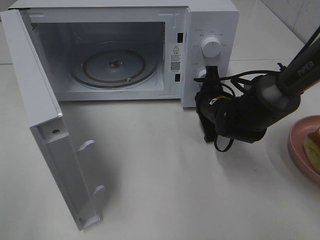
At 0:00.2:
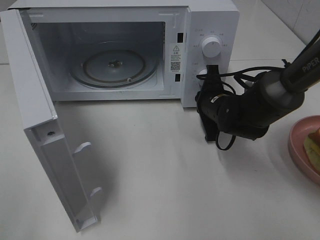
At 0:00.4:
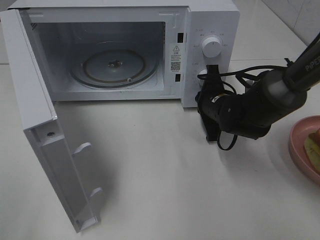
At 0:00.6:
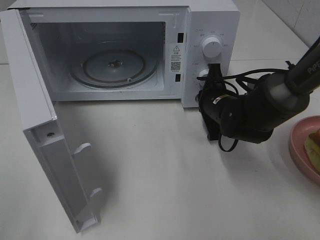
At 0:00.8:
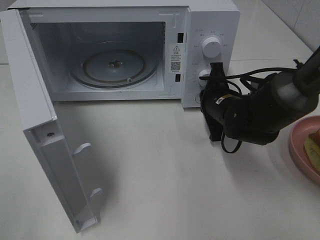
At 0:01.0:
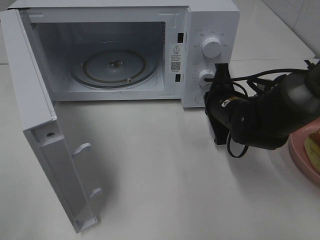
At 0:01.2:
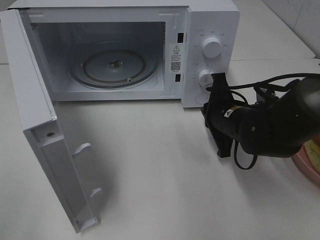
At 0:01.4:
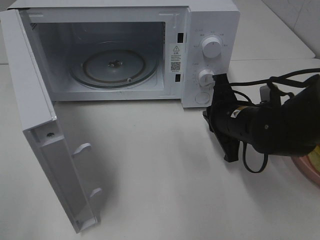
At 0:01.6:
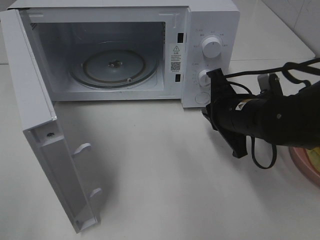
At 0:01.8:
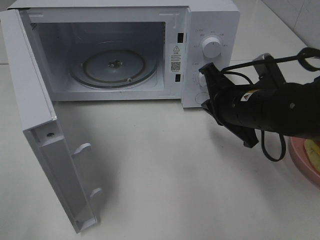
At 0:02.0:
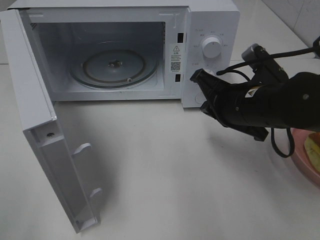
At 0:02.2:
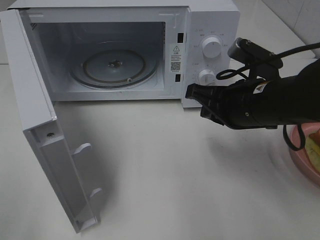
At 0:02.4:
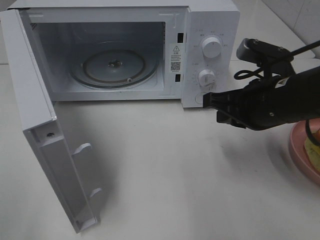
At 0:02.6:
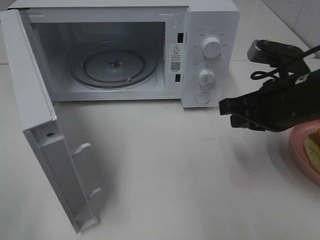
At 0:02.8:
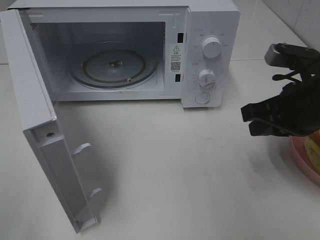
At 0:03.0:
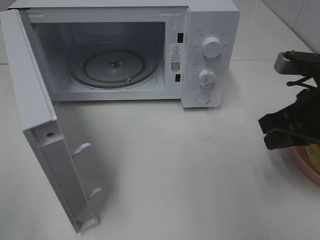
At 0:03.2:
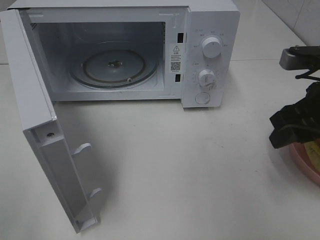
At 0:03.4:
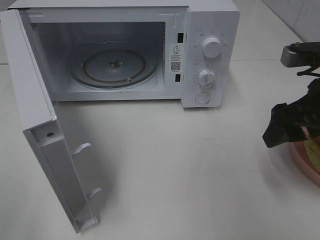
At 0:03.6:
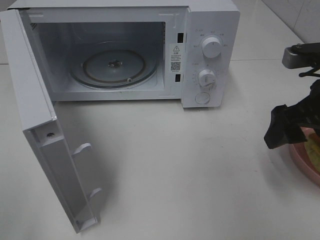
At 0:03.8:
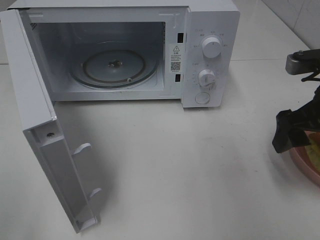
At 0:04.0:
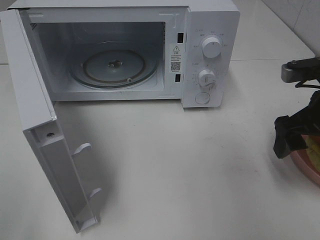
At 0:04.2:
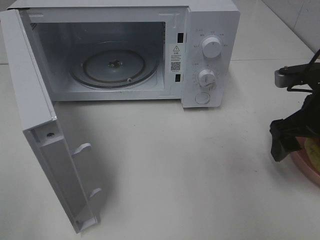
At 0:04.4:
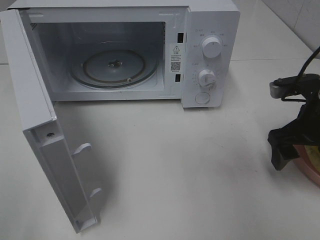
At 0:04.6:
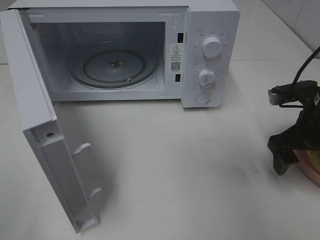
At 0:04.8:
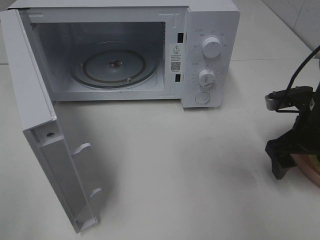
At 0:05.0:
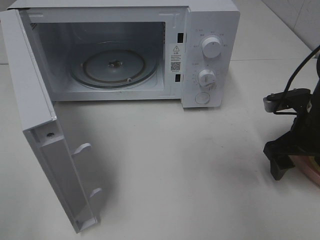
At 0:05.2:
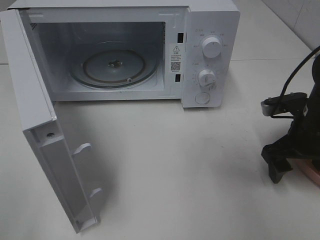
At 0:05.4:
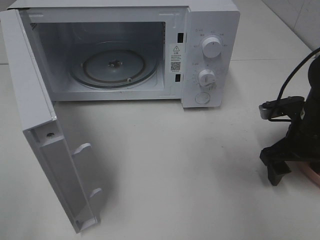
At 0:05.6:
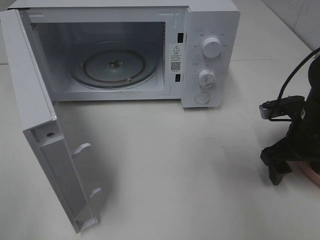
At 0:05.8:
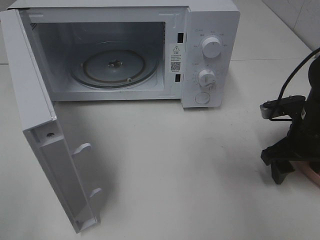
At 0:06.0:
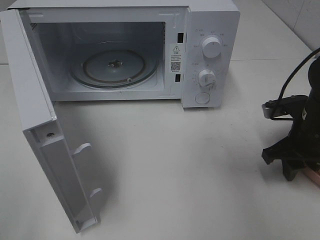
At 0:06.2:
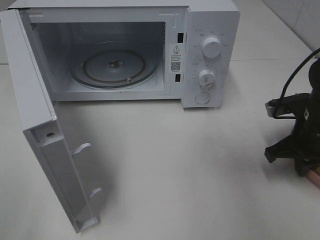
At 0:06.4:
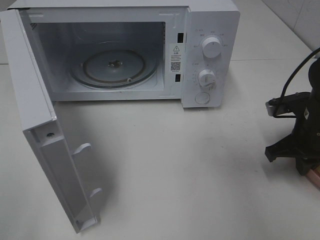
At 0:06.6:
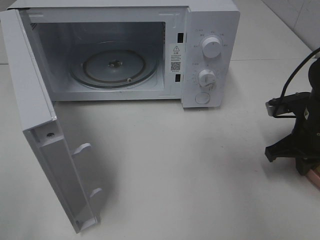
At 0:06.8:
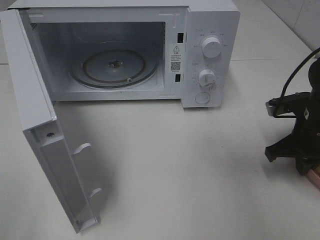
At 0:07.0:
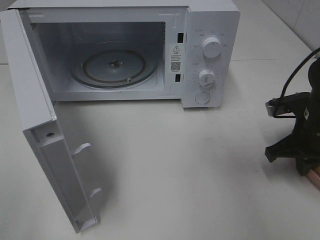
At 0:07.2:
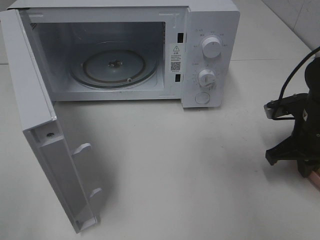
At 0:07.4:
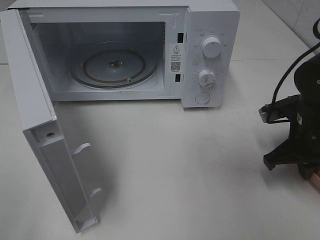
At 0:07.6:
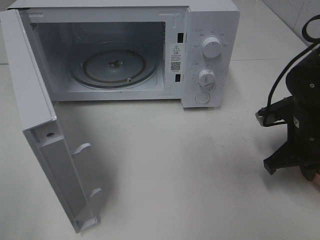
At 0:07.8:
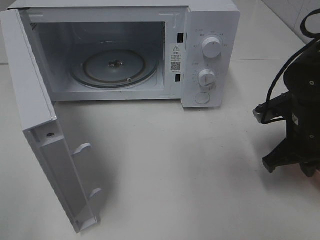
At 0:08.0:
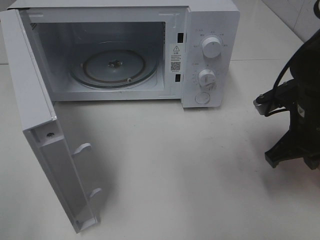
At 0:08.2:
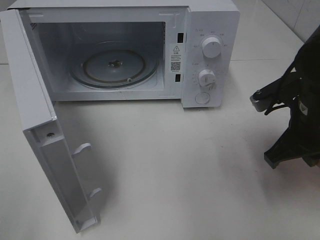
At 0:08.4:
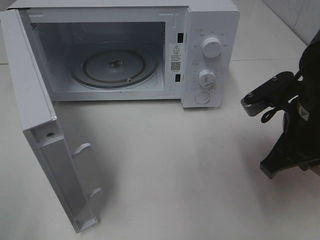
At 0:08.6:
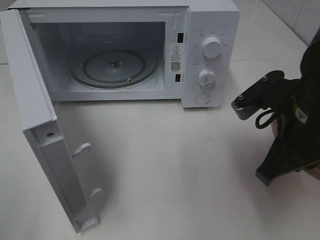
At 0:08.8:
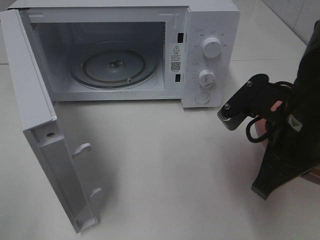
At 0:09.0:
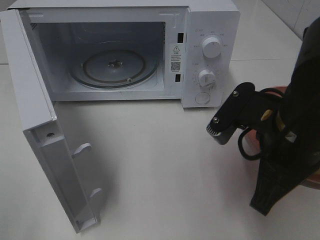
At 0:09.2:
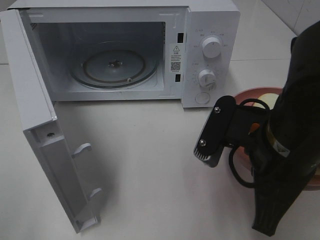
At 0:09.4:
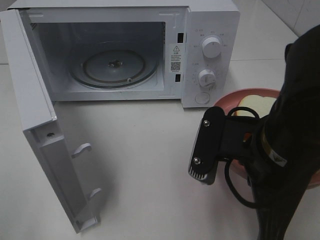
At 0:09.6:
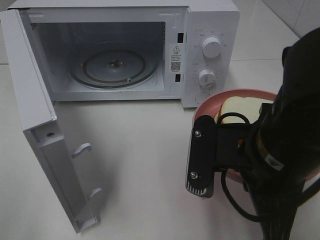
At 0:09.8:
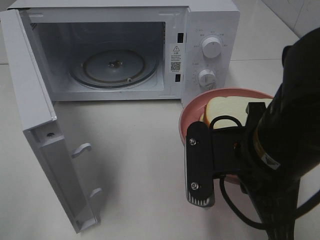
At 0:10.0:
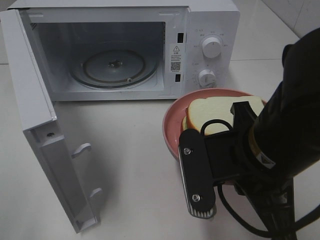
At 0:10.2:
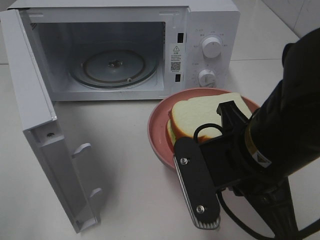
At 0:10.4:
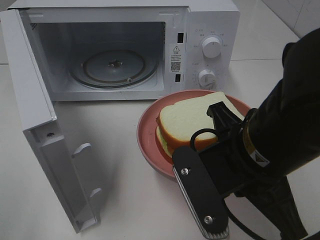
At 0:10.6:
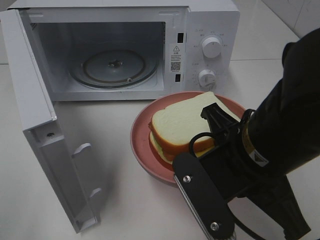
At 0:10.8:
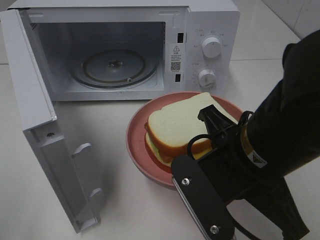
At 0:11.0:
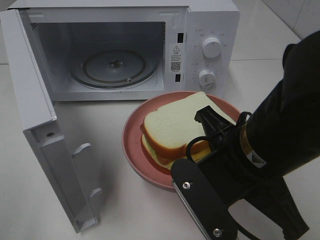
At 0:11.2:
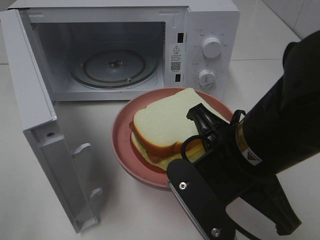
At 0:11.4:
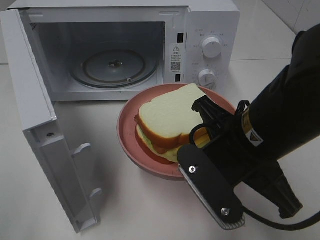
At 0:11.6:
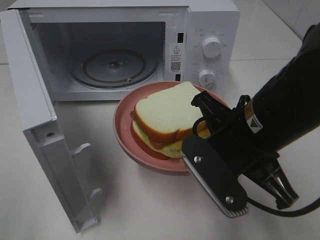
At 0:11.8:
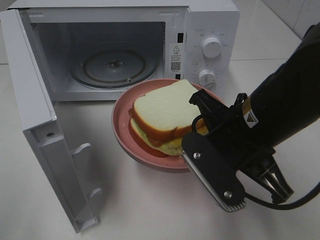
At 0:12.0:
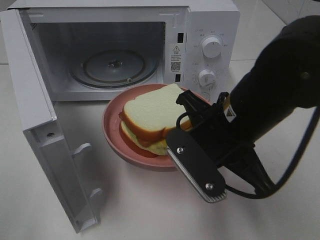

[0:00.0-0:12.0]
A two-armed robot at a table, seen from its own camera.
Task of the whole recording: Heat Sandwich.
Step, 0:01.2 to 0:07.4: Right hand: grab the plate with the sandwich.
0:00.0 to 0:01.6: The right gripper shifts some 10 cm backward and upward.
0:01.6 to 0:03.0: The right gripper goes roughly 15 cm to the right, upward and backward.
0:03.0 to 0:04.4: The right gripper shifts by about 5 cm, and opens.
0:04.4 to 0:06.0: The right gripper closes up.
0:06.0 to 0:07.6: The right gripper closes.
0:07.6 to 0:09.0: The right gripper shifts about 15 cm to the left, backward and upward.
0:09.0 to 0:10.4: The right gripper moves approximately 5 cm.
0:10.4 to 0:12.0: The right gripper travels forward by approximately 5 cm.

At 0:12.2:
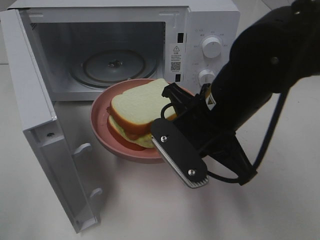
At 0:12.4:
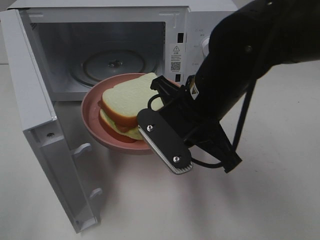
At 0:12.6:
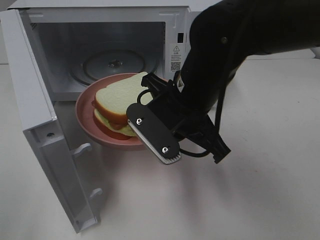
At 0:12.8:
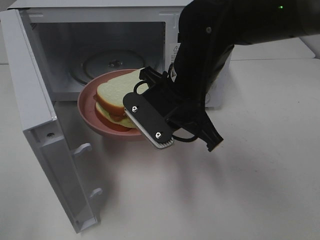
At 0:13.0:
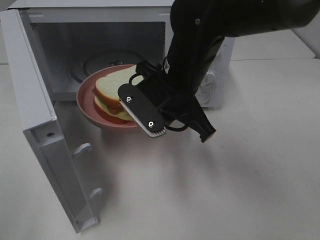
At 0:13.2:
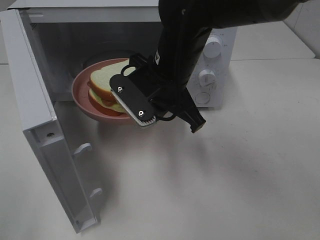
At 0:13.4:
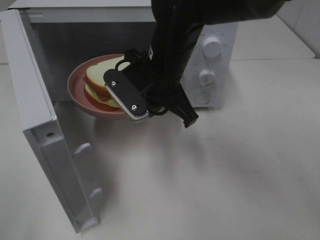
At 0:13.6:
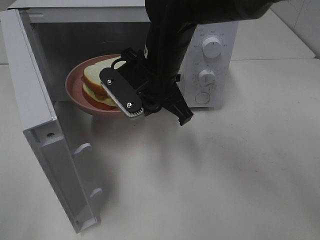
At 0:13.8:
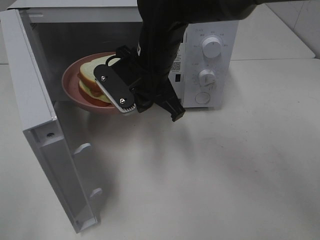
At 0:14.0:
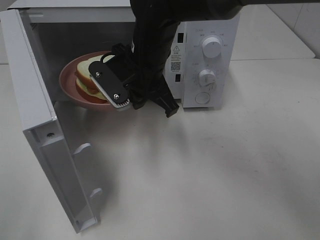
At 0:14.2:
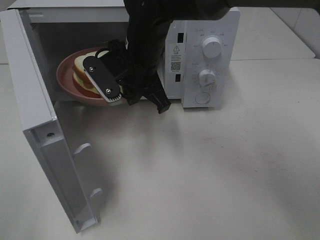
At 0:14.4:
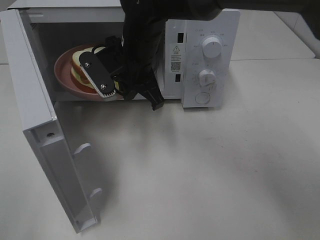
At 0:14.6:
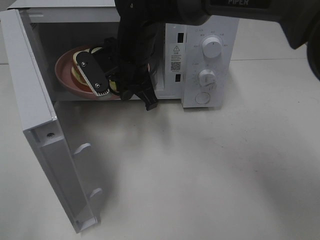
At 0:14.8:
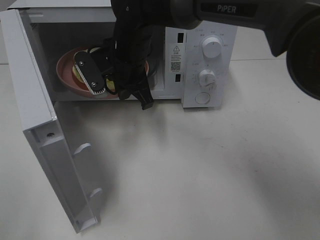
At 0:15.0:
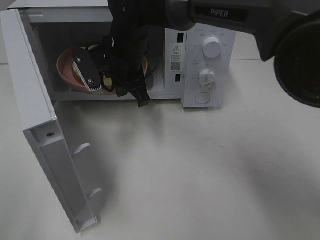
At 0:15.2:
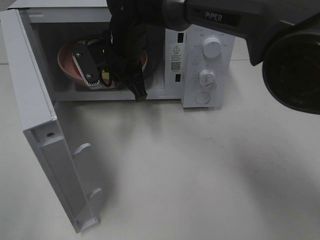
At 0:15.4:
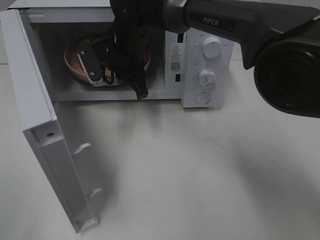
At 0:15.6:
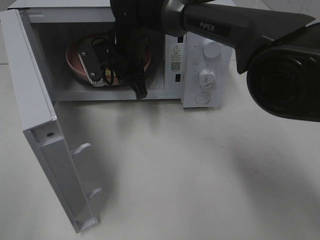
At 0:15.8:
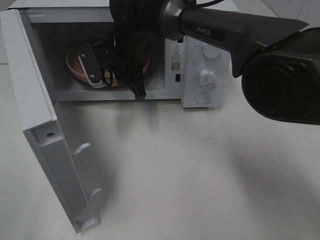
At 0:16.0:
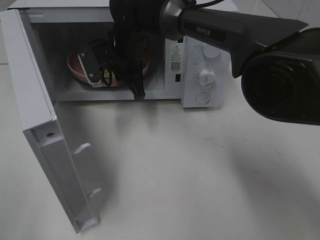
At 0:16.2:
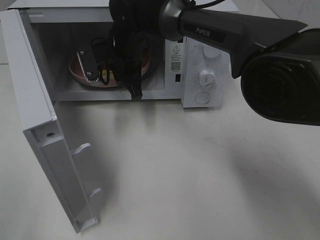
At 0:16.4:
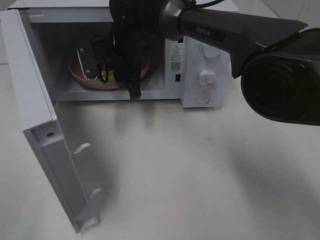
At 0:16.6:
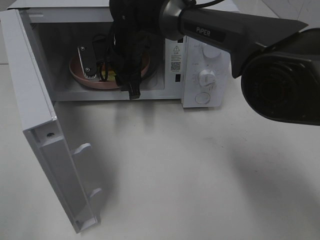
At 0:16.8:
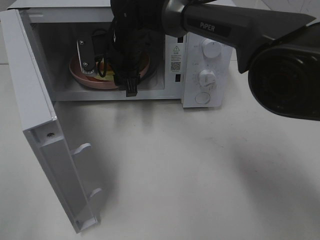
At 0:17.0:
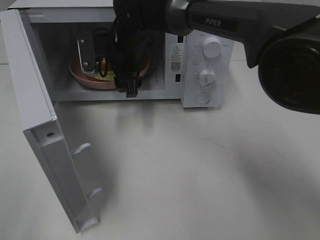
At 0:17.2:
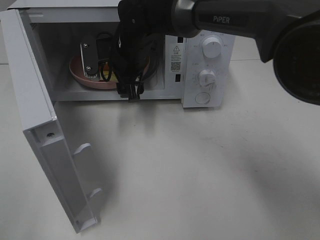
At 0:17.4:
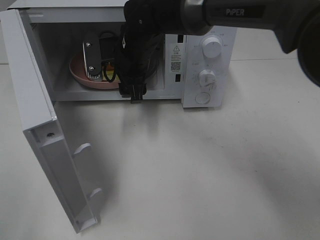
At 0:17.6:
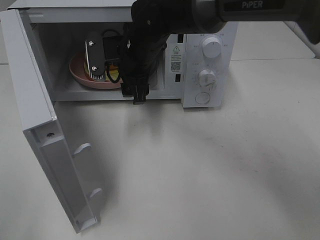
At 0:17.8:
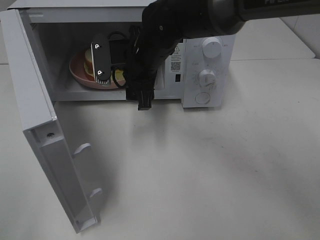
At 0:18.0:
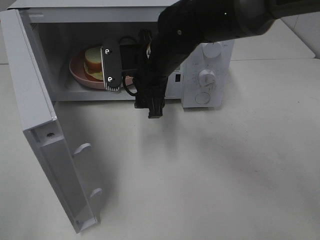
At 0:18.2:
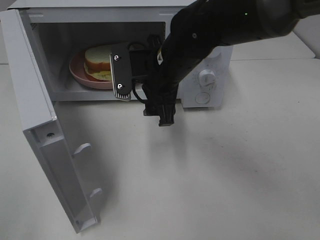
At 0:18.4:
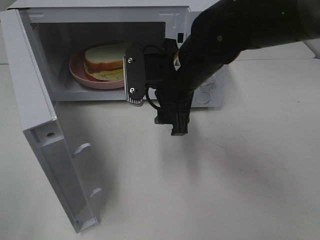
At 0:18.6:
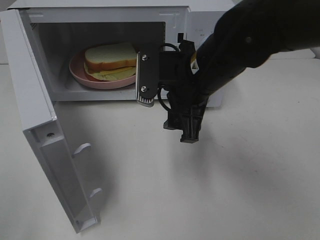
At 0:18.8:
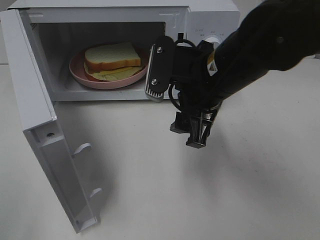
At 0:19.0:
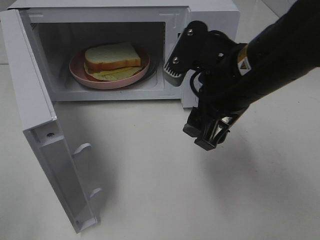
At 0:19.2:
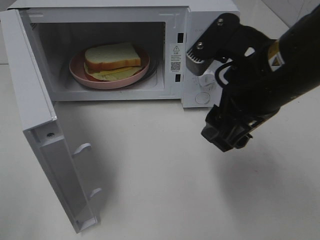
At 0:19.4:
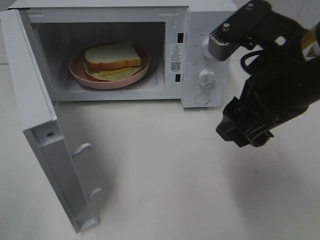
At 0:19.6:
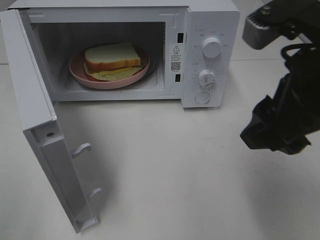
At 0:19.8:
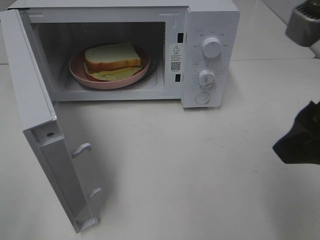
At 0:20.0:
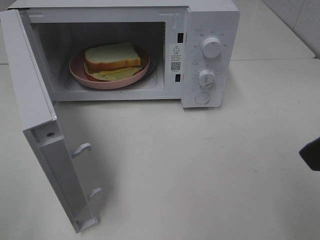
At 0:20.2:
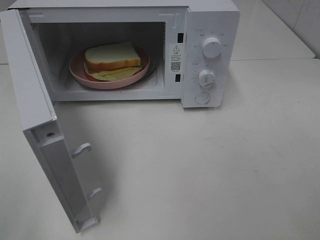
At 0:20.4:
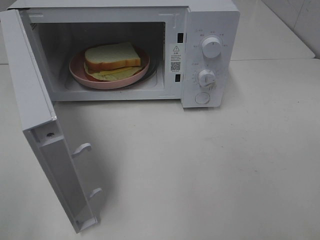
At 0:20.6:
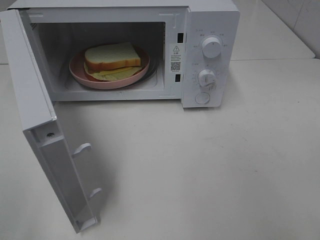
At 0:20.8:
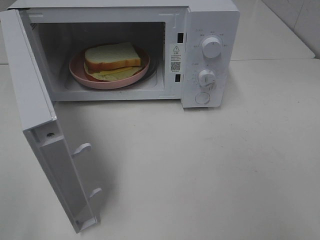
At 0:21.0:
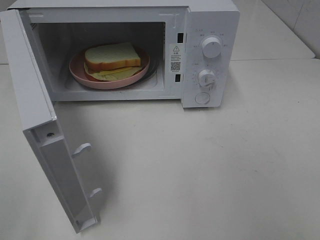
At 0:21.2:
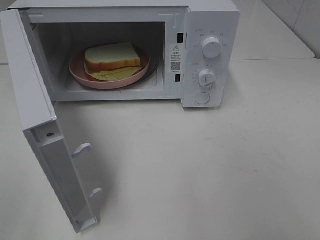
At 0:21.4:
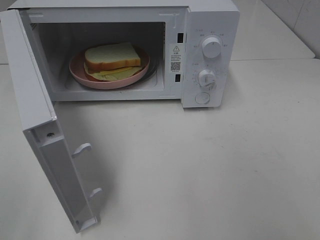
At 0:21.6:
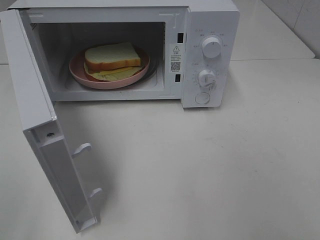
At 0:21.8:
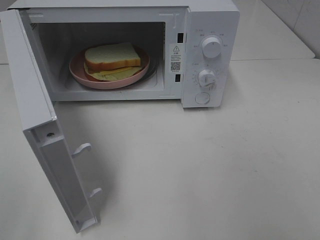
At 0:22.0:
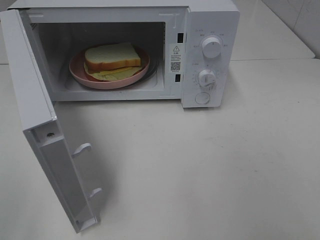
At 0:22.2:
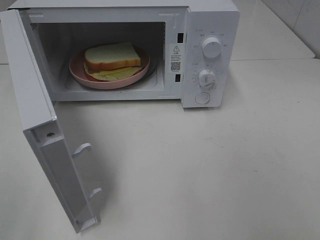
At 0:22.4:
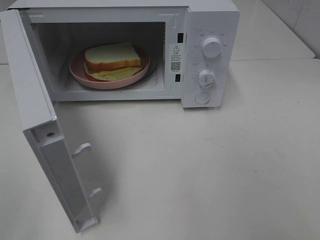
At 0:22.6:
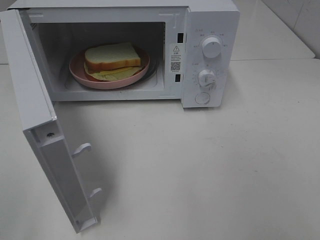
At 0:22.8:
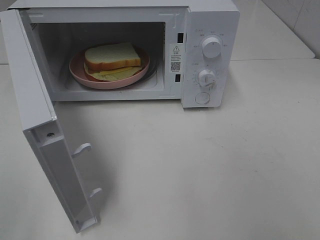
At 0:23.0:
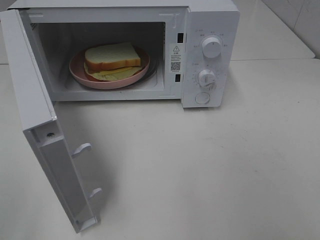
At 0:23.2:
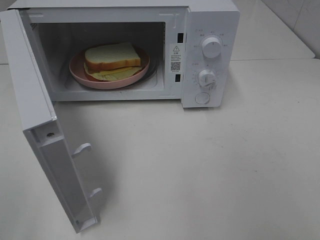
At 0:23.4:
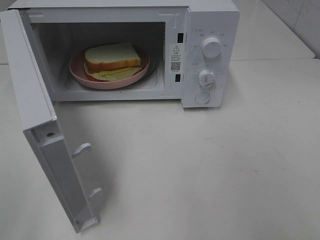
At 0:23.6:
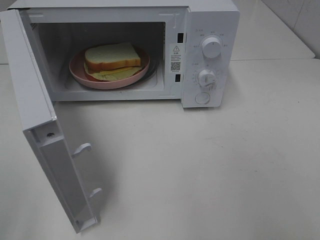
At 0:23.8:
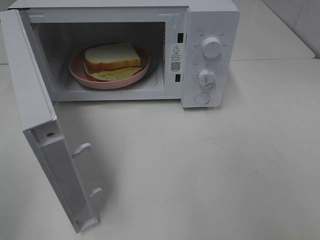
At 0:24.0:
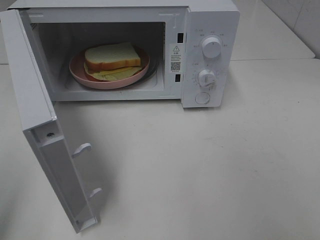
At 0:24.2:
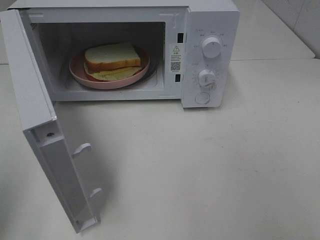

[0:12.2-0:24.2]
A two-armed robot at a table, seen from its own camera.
Task of the whole recording: Heat Sandwich.
Step, 0:12.2 to 0:17.6: Right hand: place the plate in the microwave.
0:12.2 to 0:13.8: The right gripper goes some 15 cm forward and to the left.
0:13.8 to 0:15.2: The right gripper heads forward, covering about 5 cm.
0:15.2 to 0:16.6: The right gripper opens.
0:16.6 to 0:18.2: The right gripper is displaced backward and to the right by approximately 15 cm.
0:18.2 to 0:19.8: The right gripper heads backward, to the right and upward, covering some 25 cm.
0:19.8 to 0:21.2: The right gripper travels backward and to the right by roughly 15 cm.
